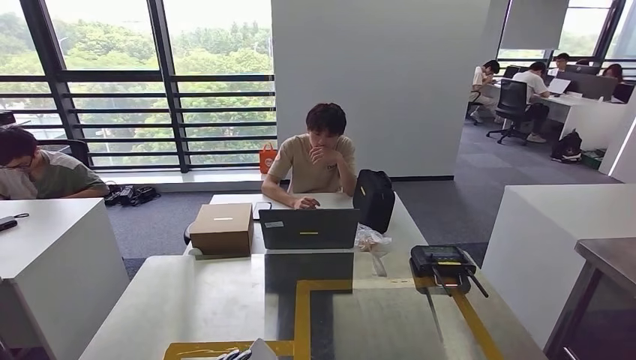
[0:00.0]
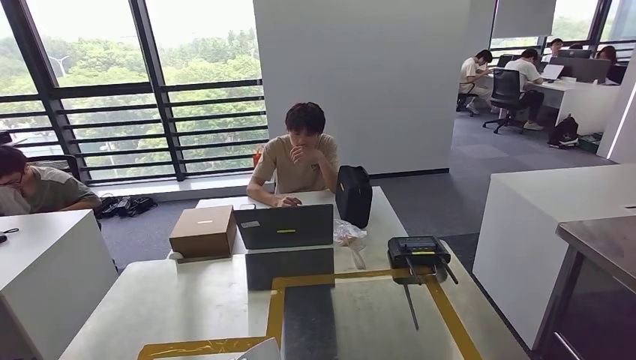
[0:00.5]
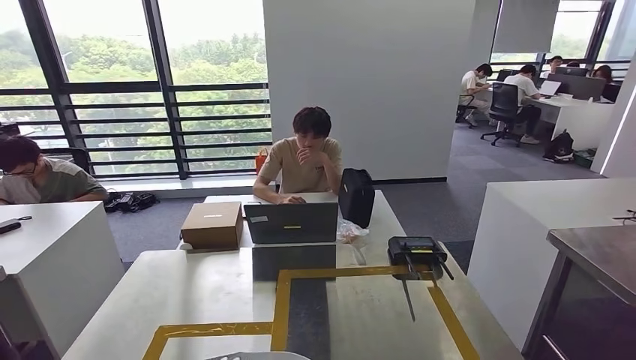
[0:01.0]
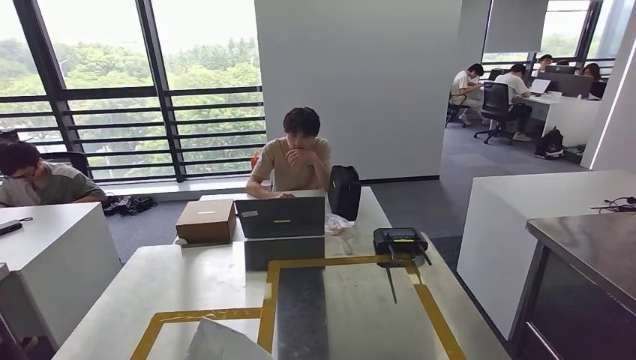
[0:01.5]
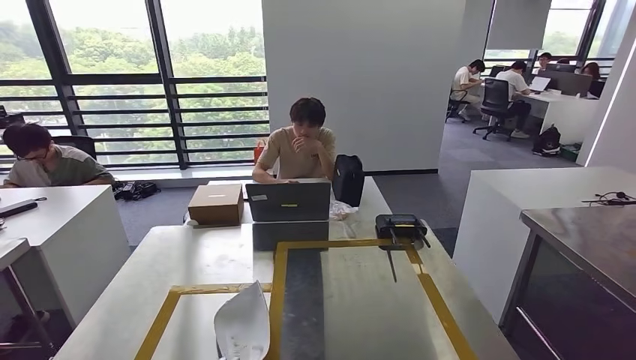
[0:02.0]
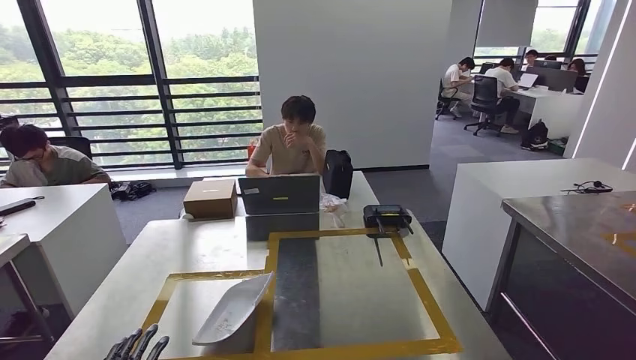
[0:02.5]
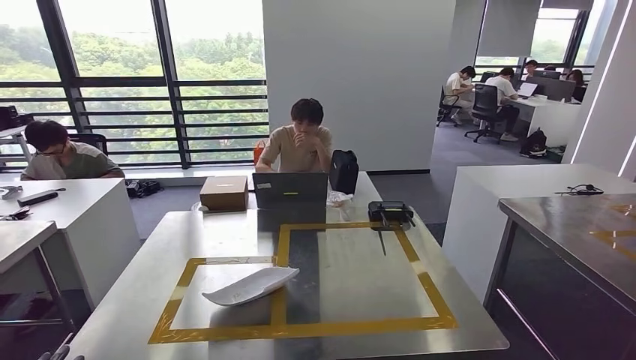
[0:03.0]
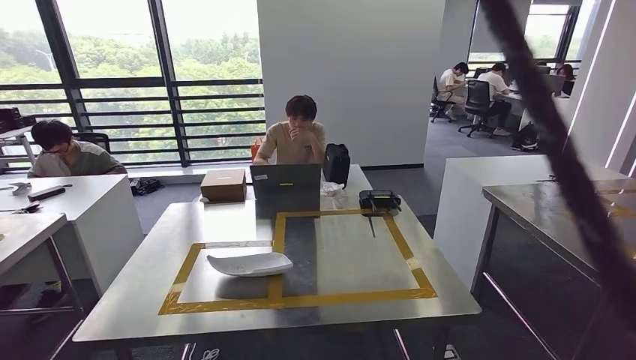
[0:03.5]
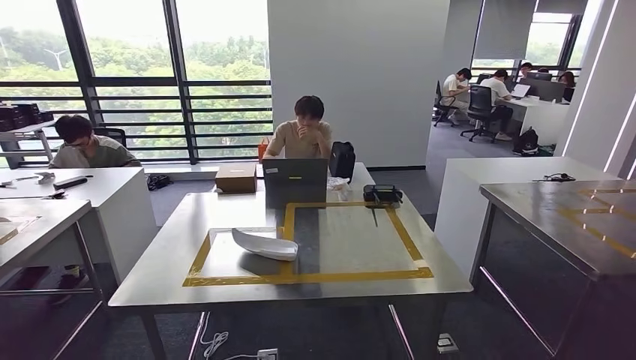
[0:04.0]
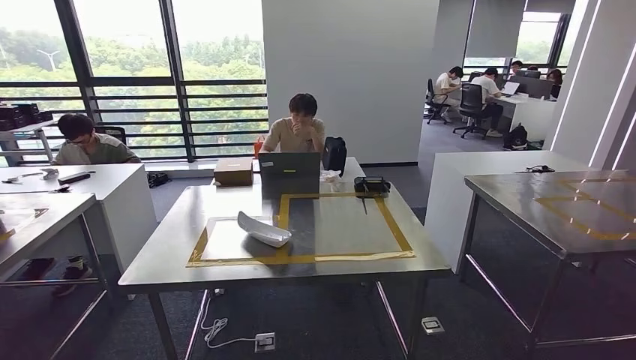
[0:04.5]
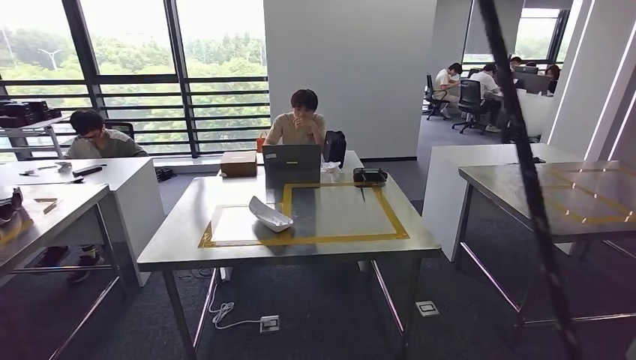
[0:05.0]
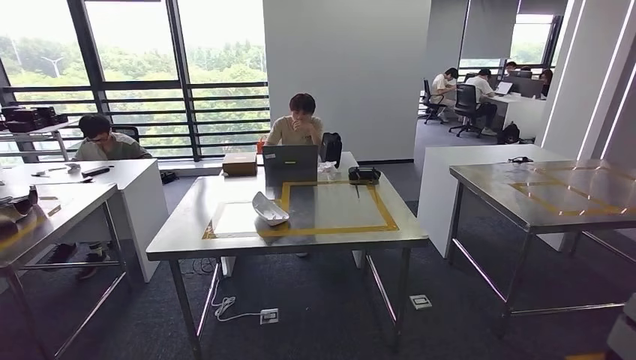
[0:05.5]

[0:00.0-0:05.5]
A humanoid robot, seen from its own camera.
Step, 0:00.0 to 0:03.5: Insert the small parts into the corresponding holes on the workbench.
Step, 0:04.0 to 0:05.5: Move to the initial position of the workbench.
